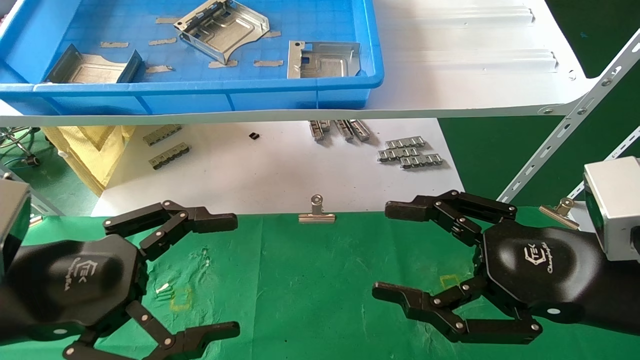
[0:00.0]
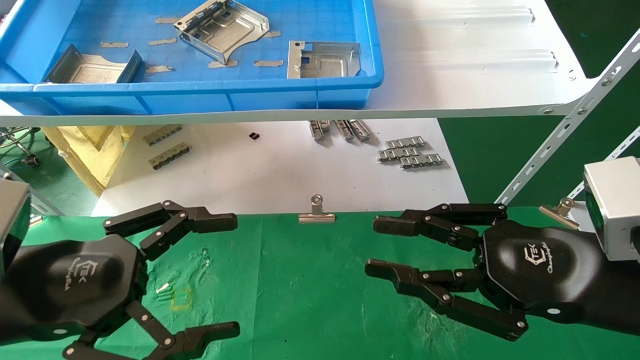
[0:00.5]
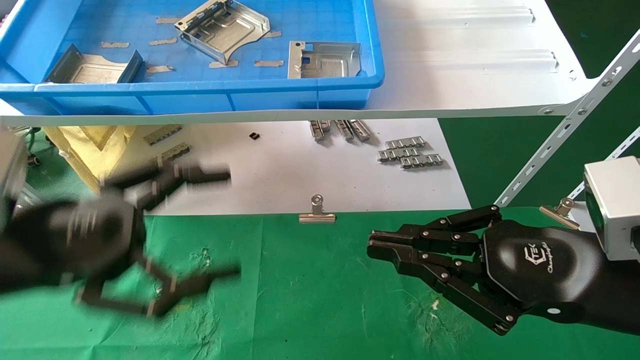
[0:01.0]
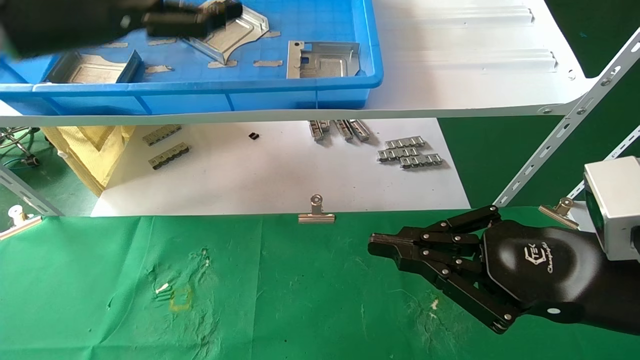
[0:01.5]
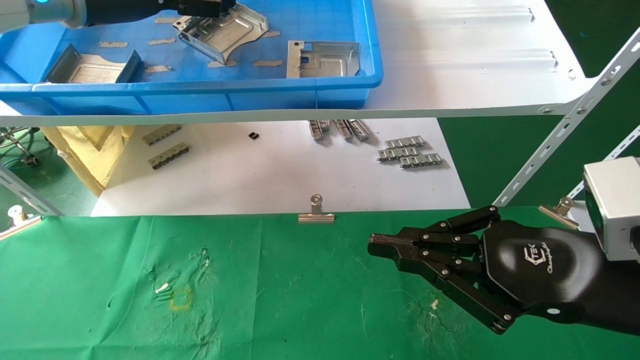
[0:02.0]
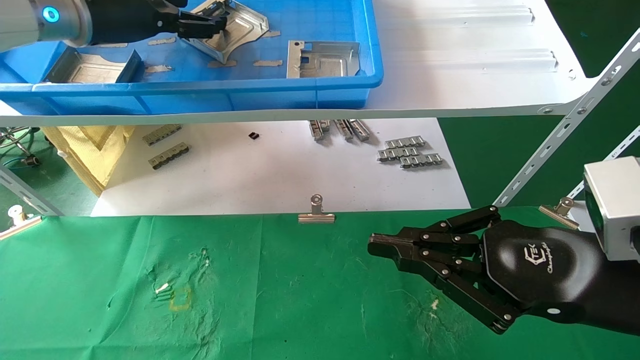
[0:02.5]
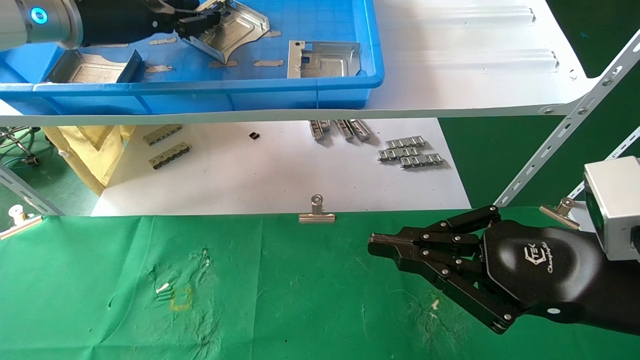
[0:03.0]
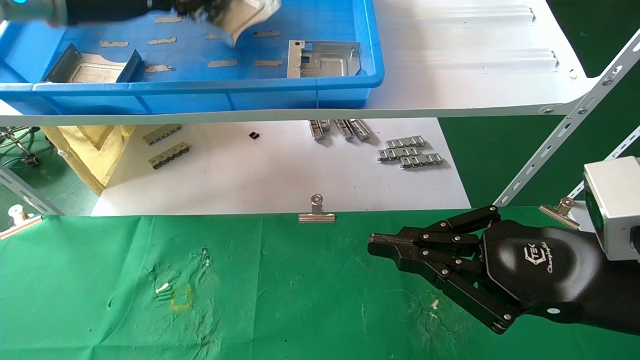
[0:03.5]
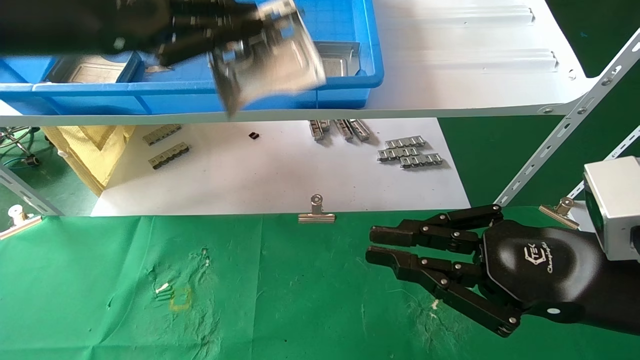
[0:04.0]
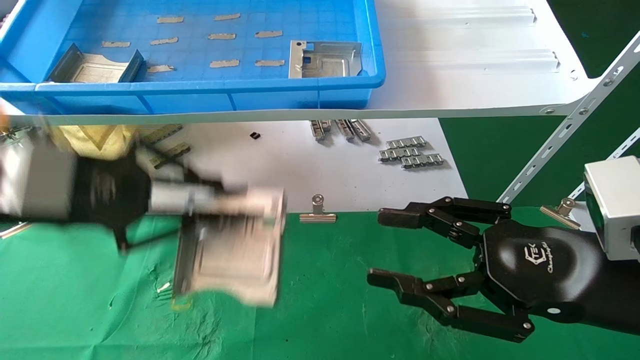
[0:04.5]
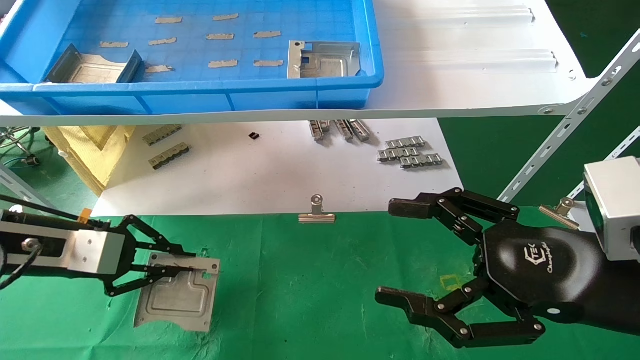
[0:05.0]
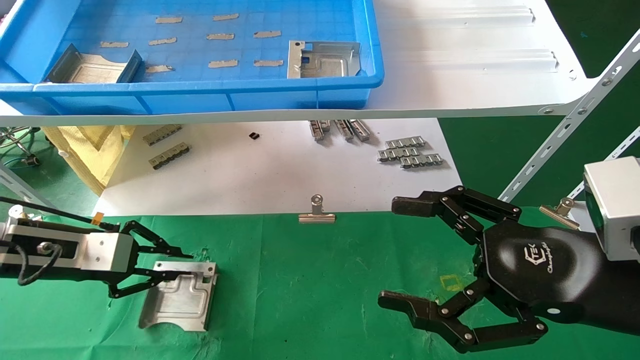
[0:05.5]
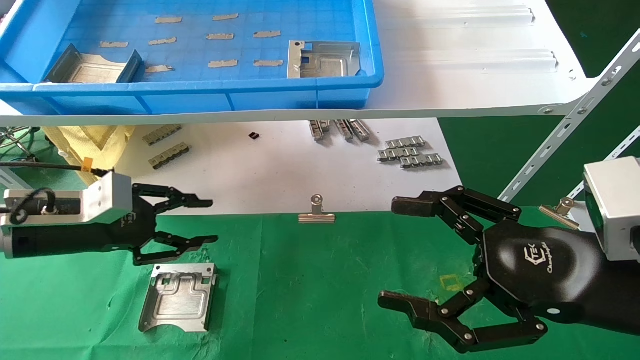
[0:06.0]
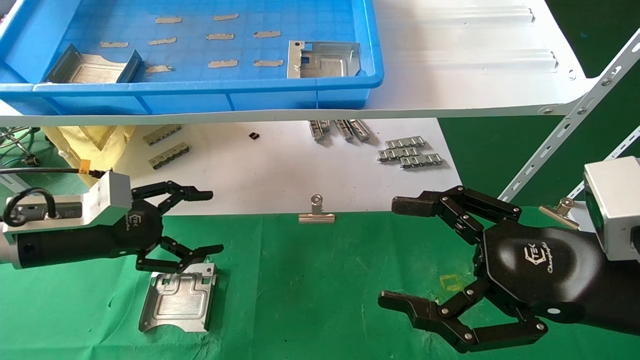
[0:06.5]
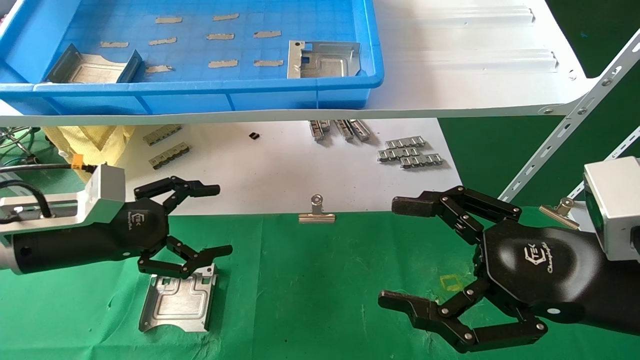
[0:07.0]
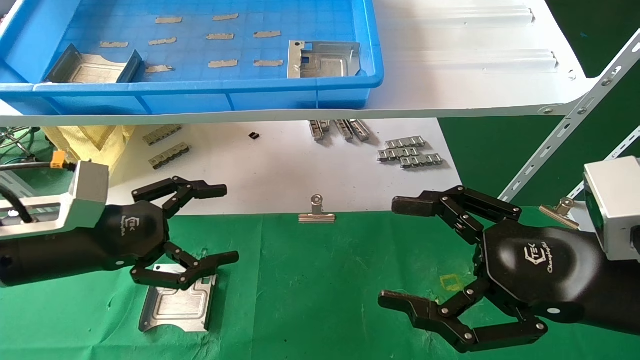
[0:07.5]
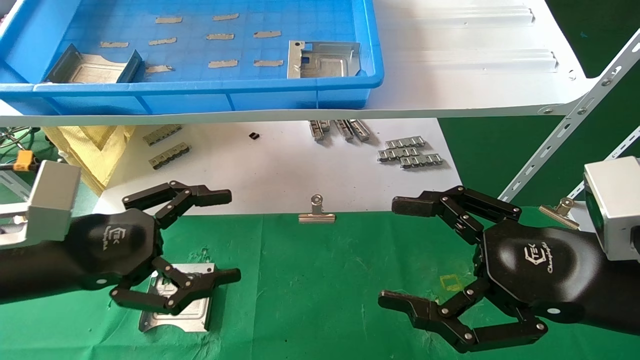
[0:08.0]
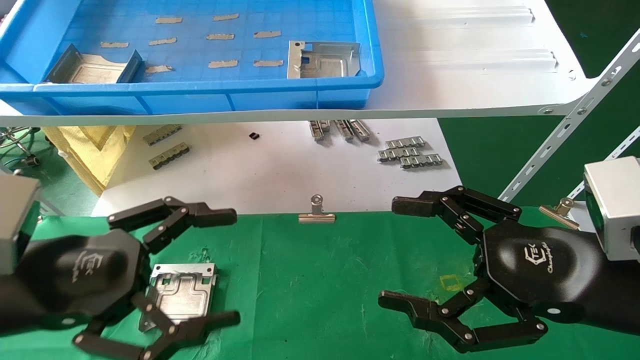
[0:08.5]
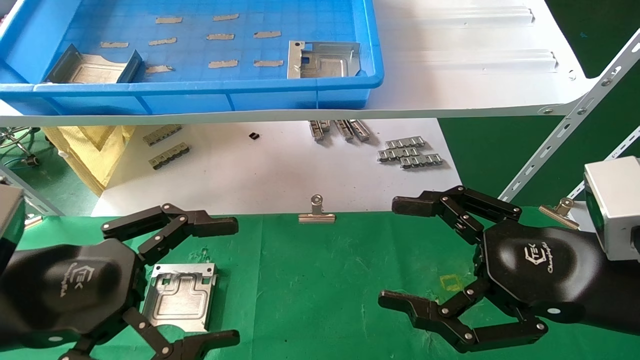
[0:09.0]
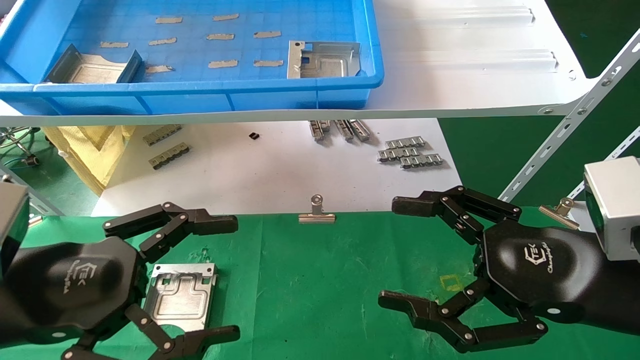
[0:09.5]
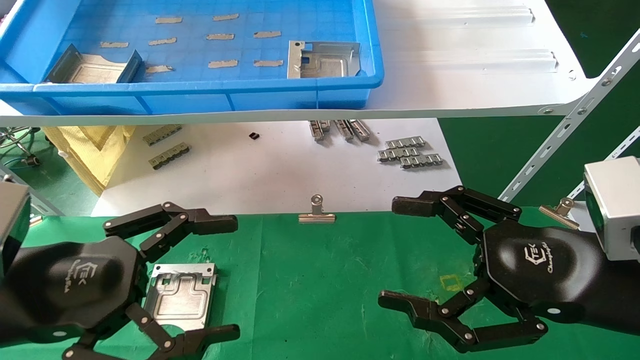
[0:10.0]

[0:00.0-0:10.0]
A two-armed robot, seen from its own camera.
Task of the whole recording: use the mechanical arm to pick up the parts and place them on the table.
Step, 0:01.5 to 0:03.0: Pick up the hard drive bracket from the feeding area.
Step, 0:03.5 to 0:05.5: Place the hard drive bracket into the box.
0:00.0 to 0:02.0: The left gripper goes about 30 cm upward and forward, while the right gripper closes its fingers.
0:02.0 to 0:04.0: The left gripper is displaced backward by about 10 cm, and closes.
0:04.0 to 0:06.0: The left gripper heads downward, covering about 25 cm, while the right gripper opens.
0:06.0 to 0:08.0: The left gripper travels backward by roughly 10 cm, and opens up.
0:08.0 to 0:10.0: The left gripper shifts approximately 5 cm backward.

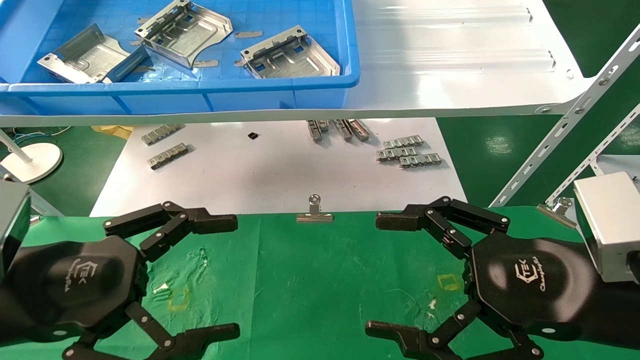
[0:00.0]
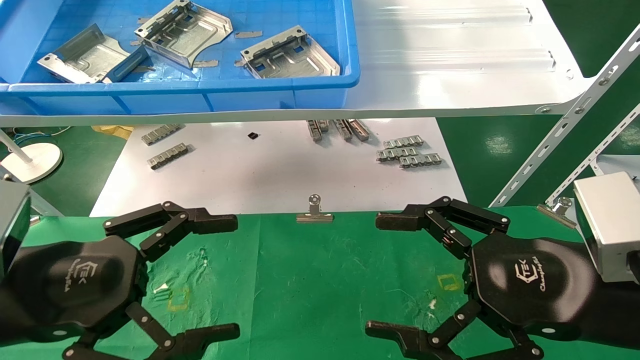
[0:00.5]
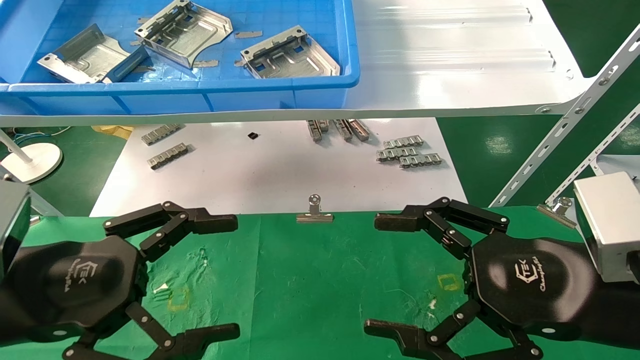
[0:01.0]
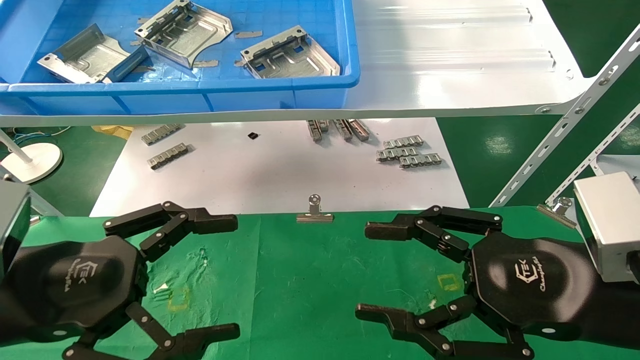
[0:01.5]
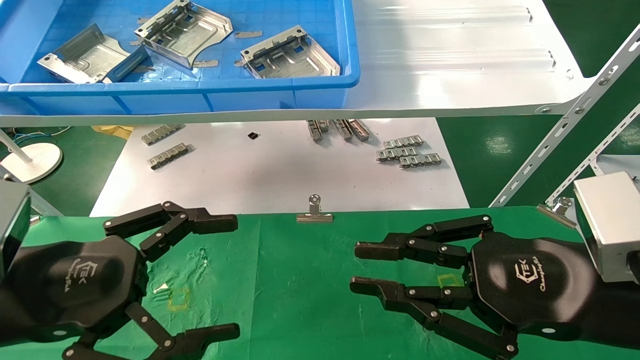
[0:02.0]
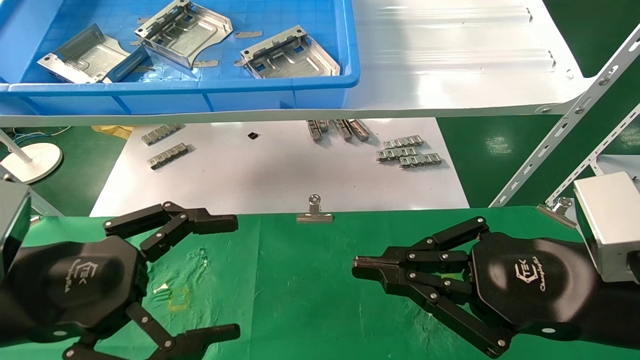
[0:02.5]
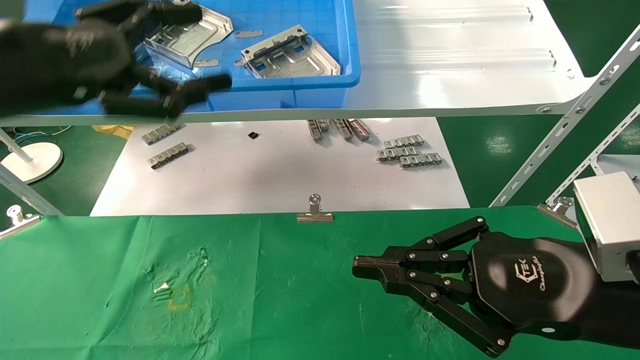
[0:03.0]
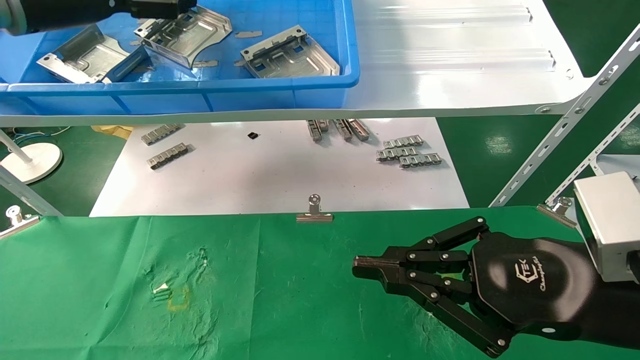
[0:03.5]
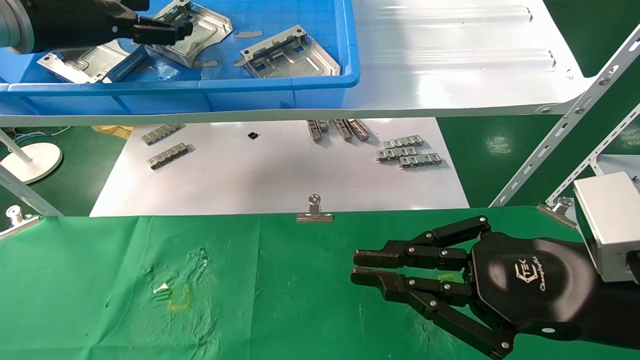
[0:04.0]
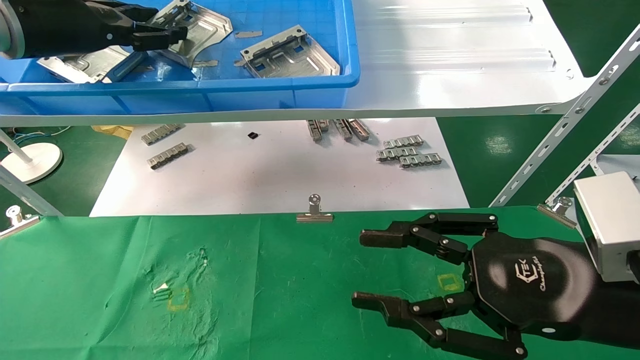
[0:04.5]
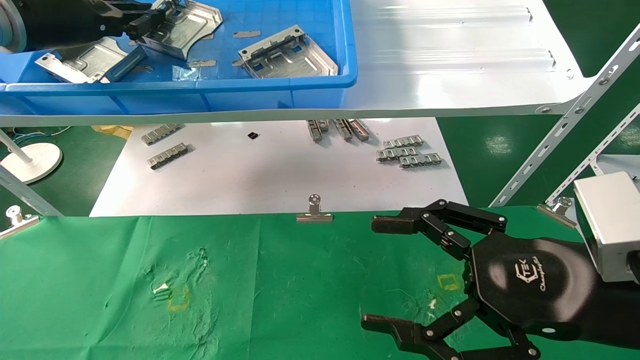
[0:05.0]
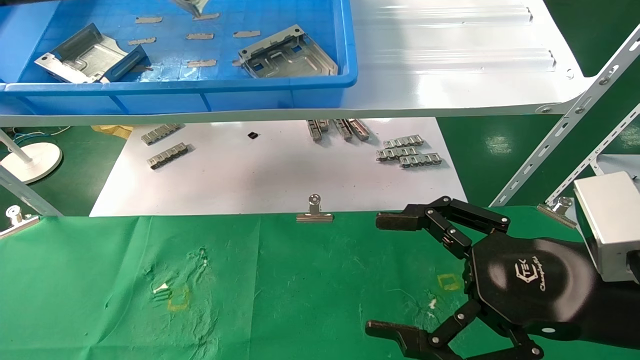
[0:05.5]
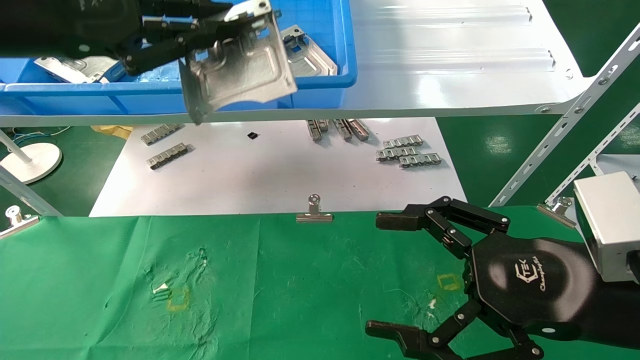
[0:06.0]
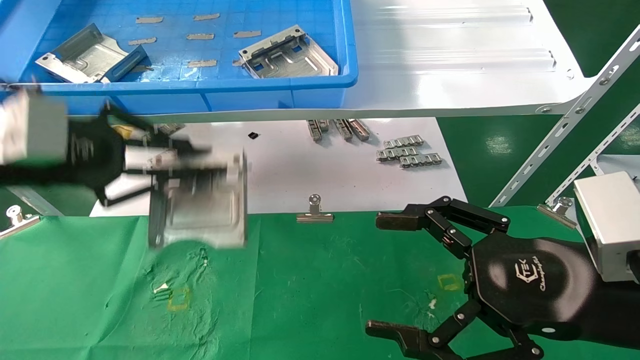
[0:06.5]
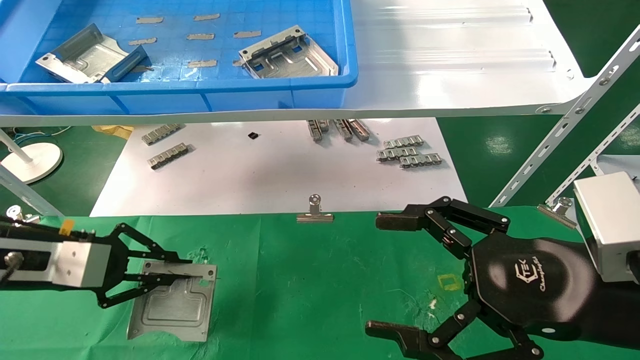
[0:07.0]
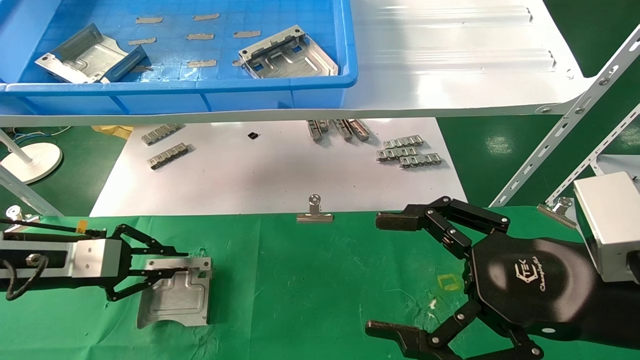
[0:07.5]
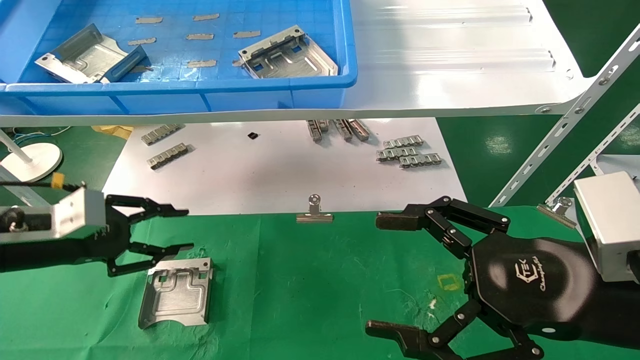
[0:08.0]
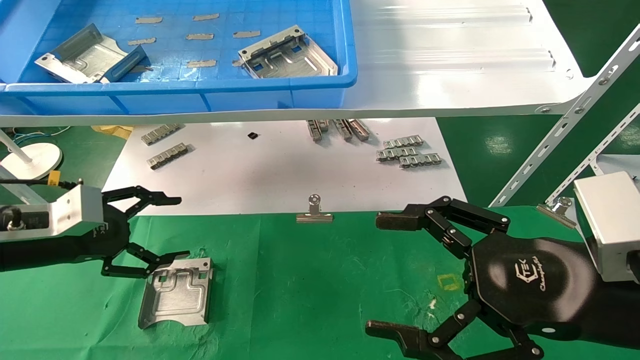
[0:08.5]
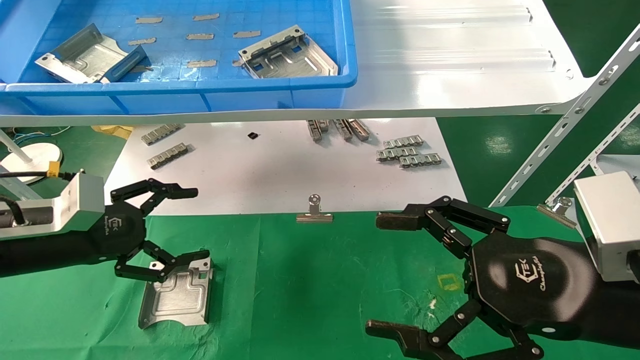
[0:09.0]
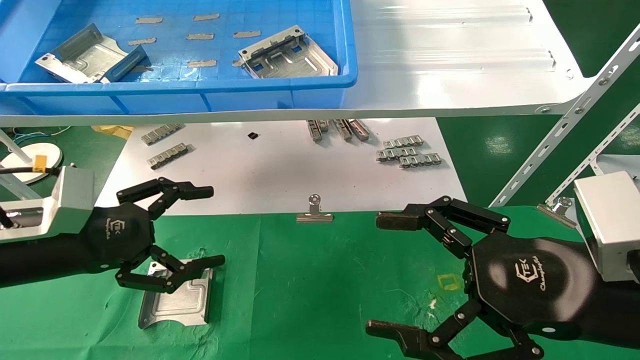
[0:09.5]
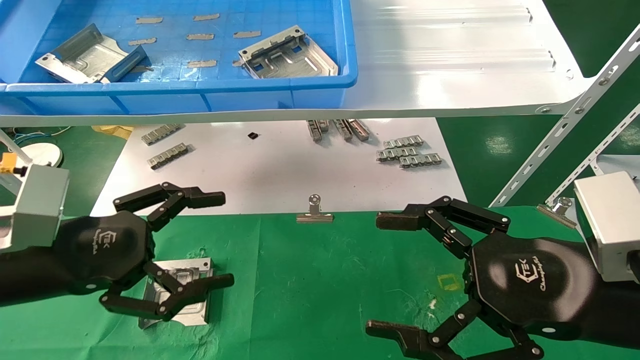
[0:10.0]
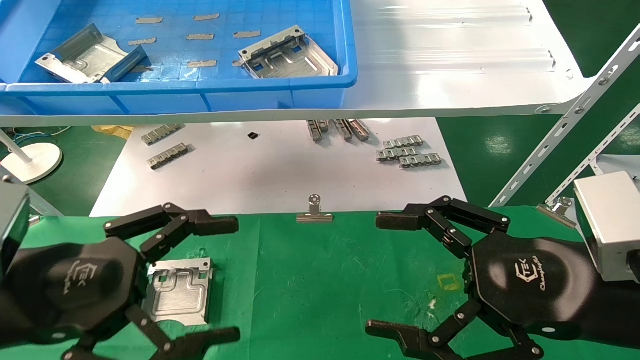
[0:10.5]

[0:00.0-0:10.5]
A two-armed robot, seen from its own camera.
Task of the whole recording: use the mechanical arm to pick up the parts and place them on the table.
Step, 0:03.0 to 0:05.0: Pick up the hard drive bracket from the feeding area.
Step, 0:05.5 to 0:07.5: Place the hard drive bracket into the box.
0:00.0 to 0:02.0: The right gripper closes up.
0:02.0 to 0:04.0: The left gripper is displaced upward and forward by some 30 cm.
0:04.0 to 0:06.5: The left gripper shifts some 15 cm backward and downward, and closes its fingers; the right gripper opens its fingers.
0:06.5 to 0:08.5: The left gripper is displaced downward and forward by about 15 cm, and opens up.
0:08.5 to 0:10.5: The left gripper shifts some 15 cm backward and to the right.
